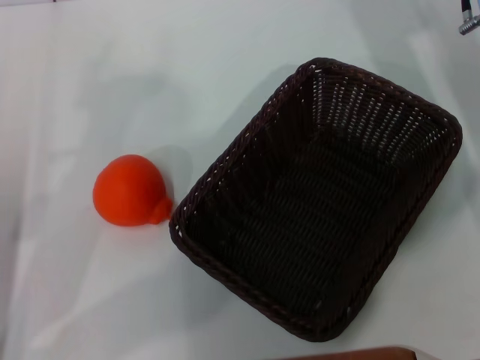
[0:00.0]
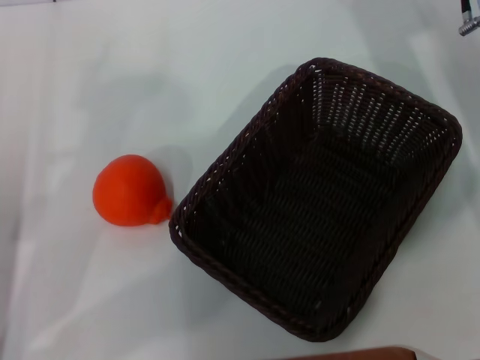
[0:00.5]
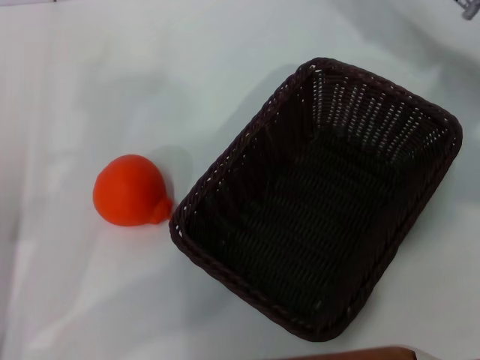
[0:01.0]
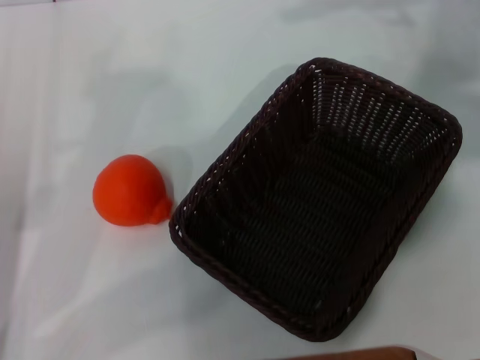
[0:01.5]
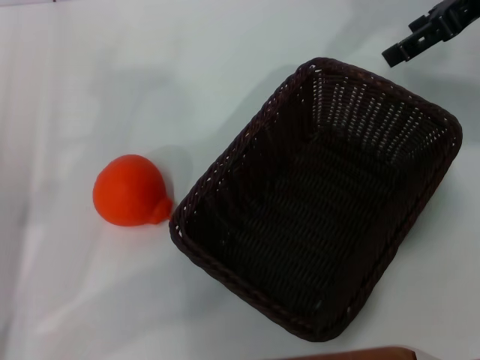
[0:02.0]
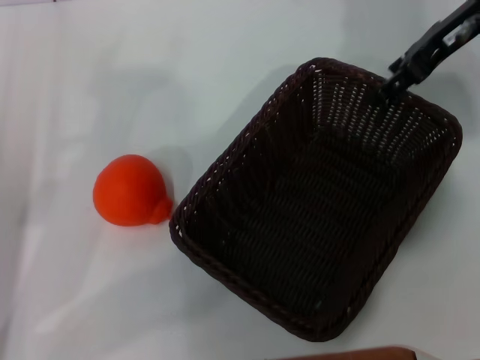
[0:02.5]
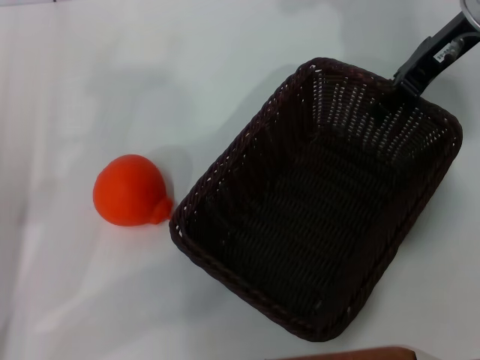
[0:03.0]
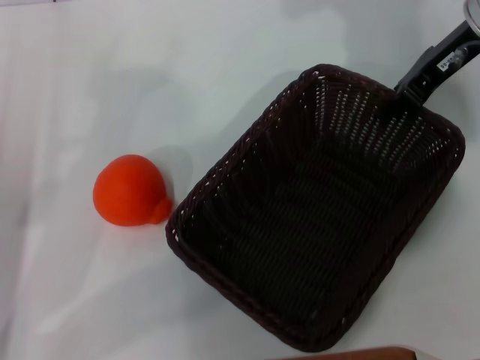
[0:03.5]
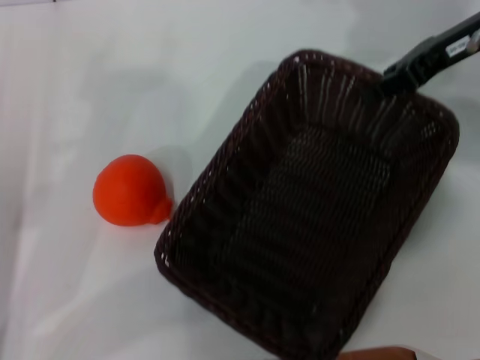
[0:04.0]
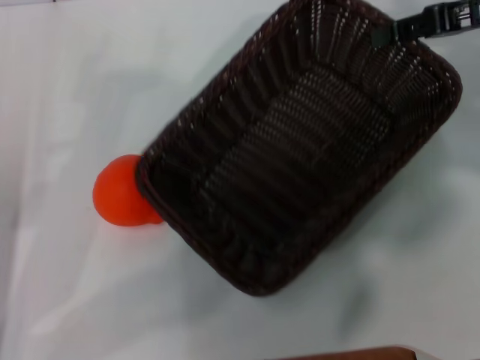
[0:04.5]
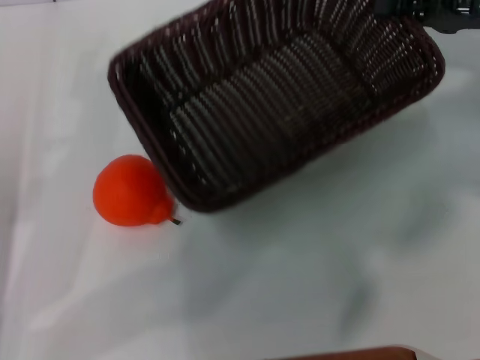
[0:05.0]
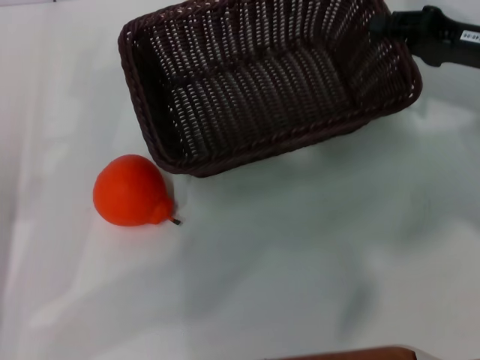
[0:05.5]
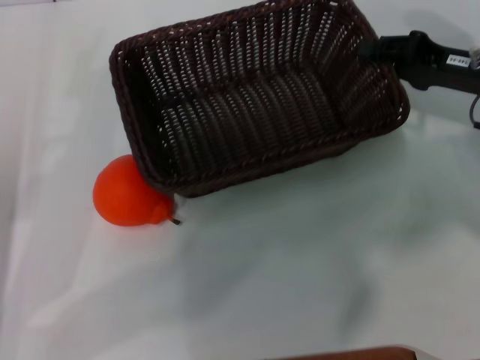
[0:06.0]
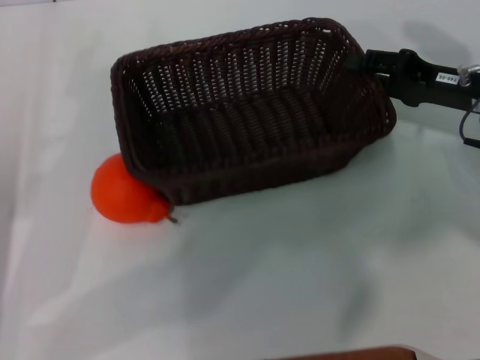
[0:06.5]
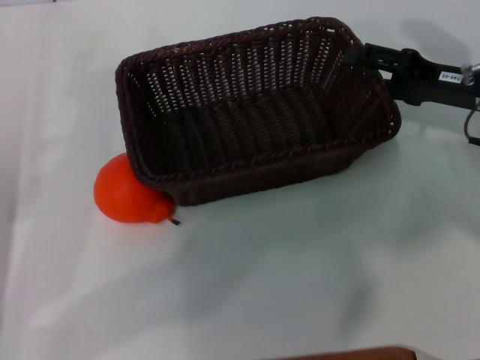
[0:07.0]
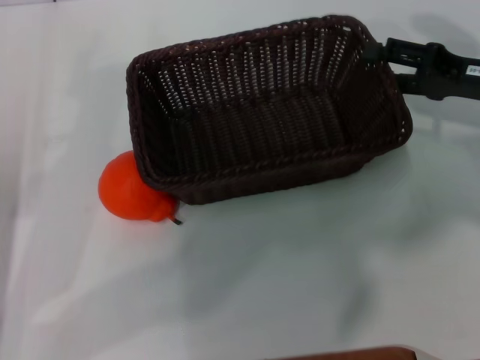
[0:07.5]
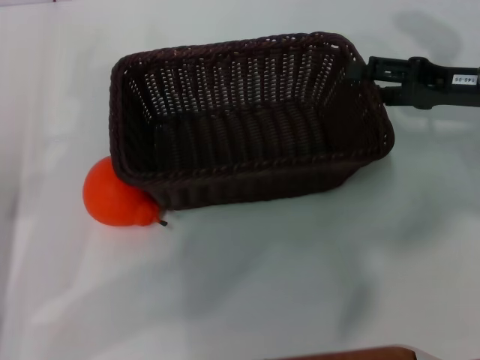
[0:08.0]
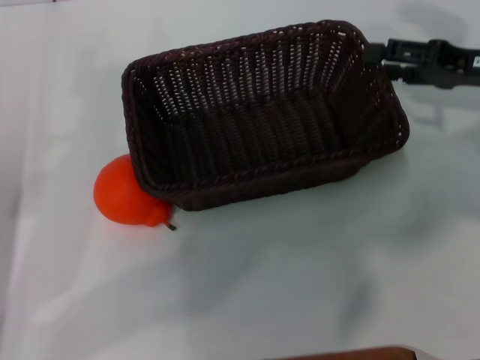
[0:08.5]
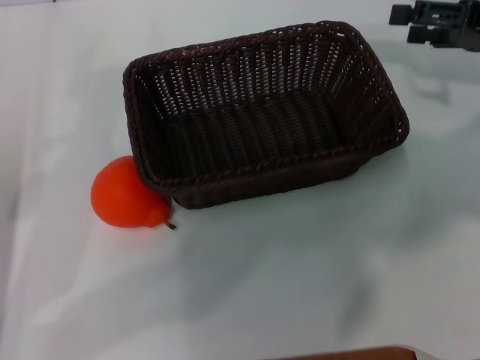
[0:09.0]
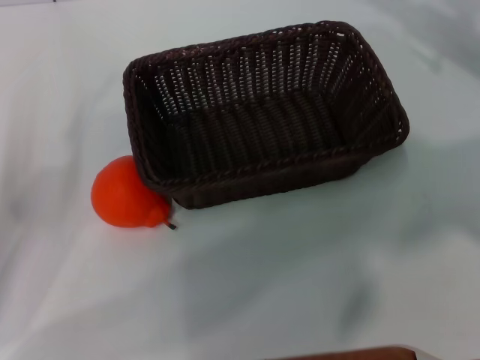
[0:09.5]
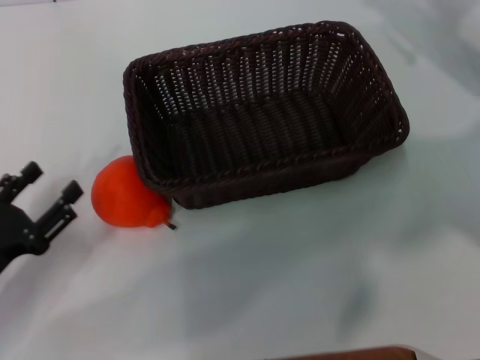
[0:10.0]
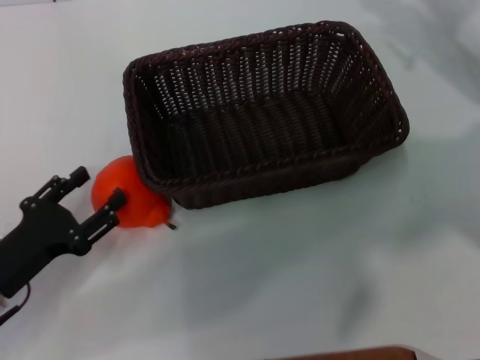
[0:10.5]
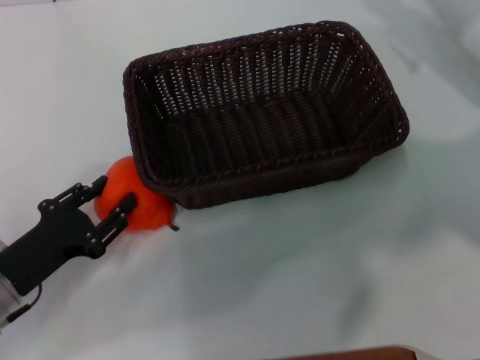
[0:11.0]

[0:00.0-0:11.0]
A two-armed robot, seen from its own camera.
Task of the whole recording: the right gripper pick up the black basket and place it horizontally in the middle of the table, the left gripper pick up the orange and place it into the black basket.
Step, 0:00.0 to 0:03.5: Pick up the dark basket with the right gripper.
Step, 0:04.0 to 0:08.0: Place the dark basket in the center of view with the right gripper.
0:00.0 to 0:02.0: The right gripper moves upward, approximately 10 cm.
0:02.0 to 0:03.5: The right gripper is displaced downward by some 5 cm, and closes.
0:03.5 to 0:05.5: The right gripper travels downward and to the right by approximately 10 cm.
0:05.5 to 0:07.5: The right gripper opens.
0:07.5 to 0:09.0: The right gripper heads upward, covering about 5 cm.
0:09.0 to 0:11.0: The left gripper heads downward, covering roughly 5 cm.

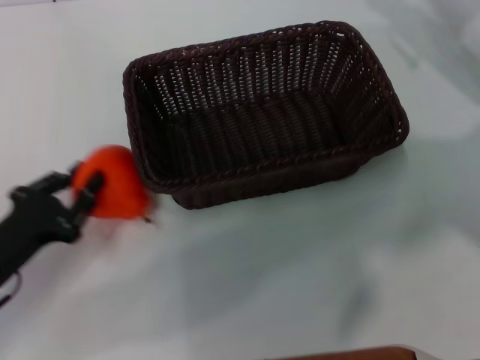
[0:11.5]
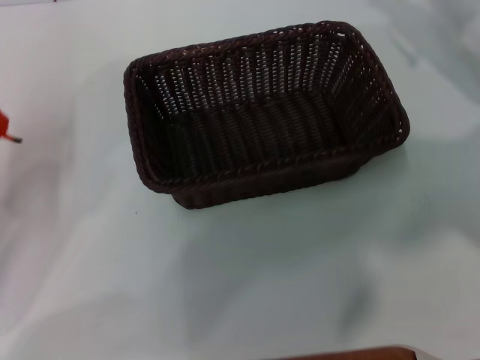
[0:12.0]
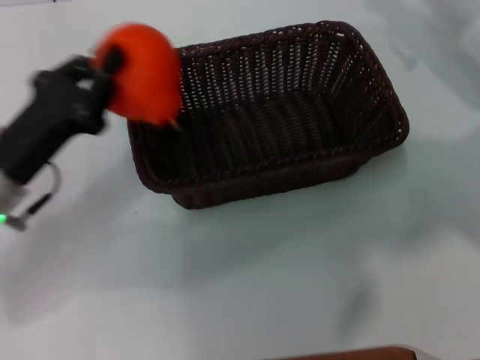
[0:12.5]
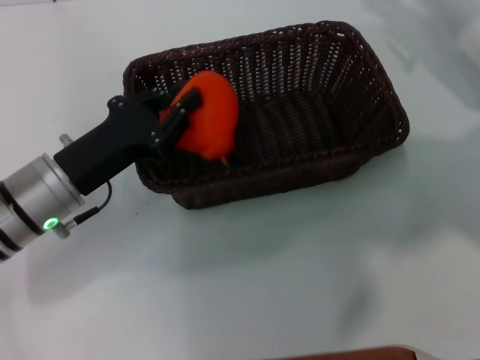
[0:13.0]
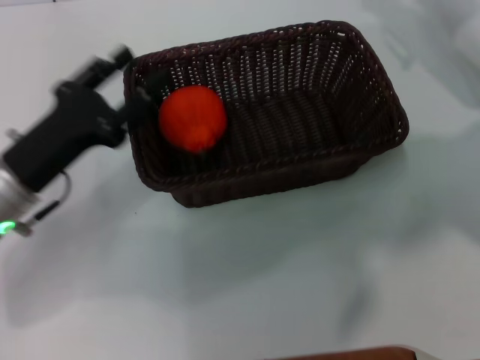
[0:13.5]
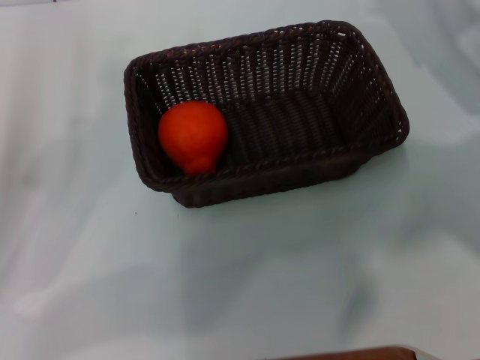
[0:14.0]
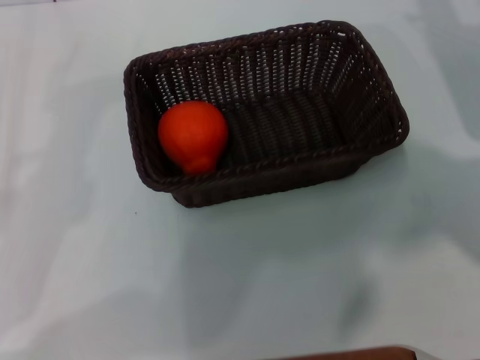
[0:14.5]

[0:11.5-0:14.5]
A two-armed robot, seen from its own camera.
Task of the whole recording: the right gripper pick up the black basket and place it horizontally in the middle of the table, the left gripper pick up the orange and place it into the black basket.
Step, 0:12.0 to 0:13.0: Place the orange into the dark basket with the left gripper.
0:11.5 to 0:13.0: The left gripper moves to the right and forward, roughly 10 cm.
0:13.0 to 0:14.5: The left gripper shifts approximately 15 cm to the left and backward, and opens up.
